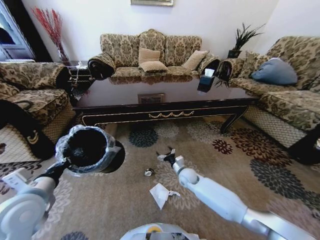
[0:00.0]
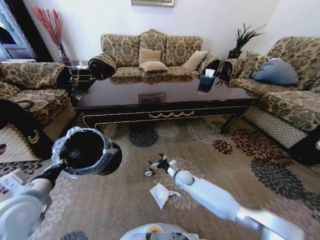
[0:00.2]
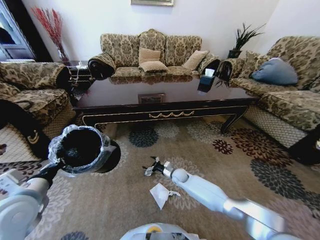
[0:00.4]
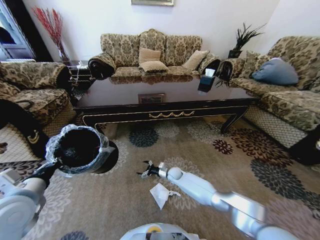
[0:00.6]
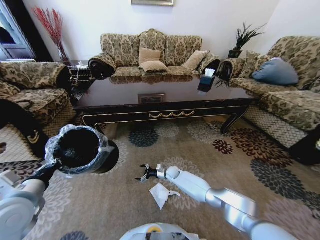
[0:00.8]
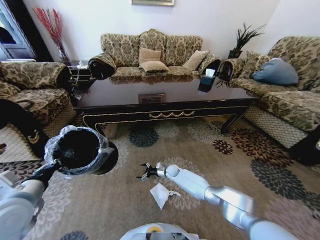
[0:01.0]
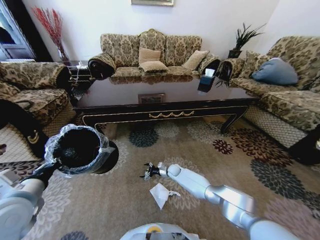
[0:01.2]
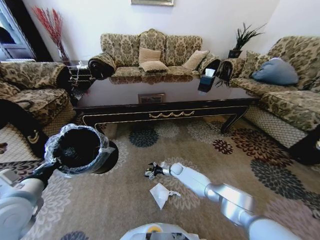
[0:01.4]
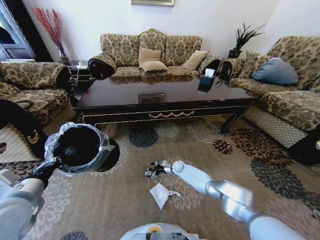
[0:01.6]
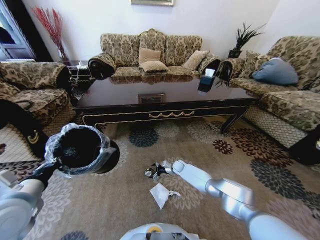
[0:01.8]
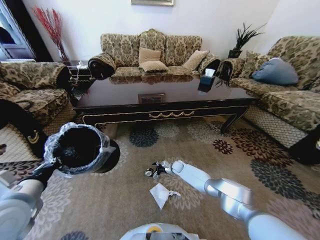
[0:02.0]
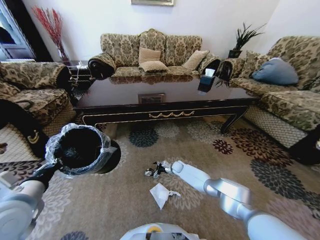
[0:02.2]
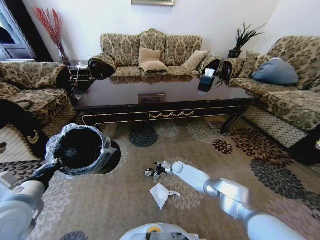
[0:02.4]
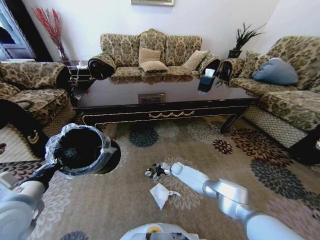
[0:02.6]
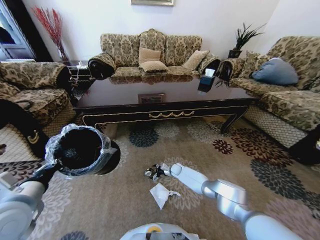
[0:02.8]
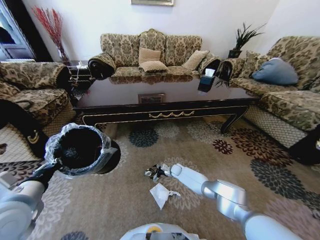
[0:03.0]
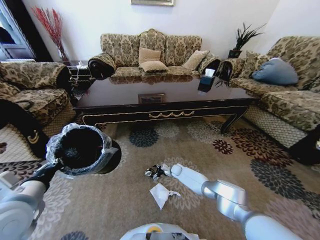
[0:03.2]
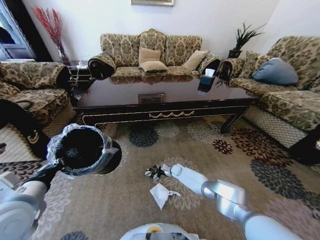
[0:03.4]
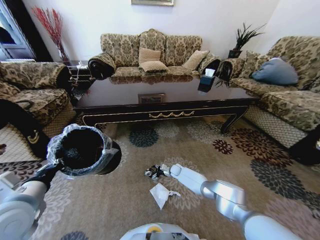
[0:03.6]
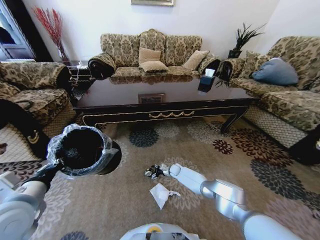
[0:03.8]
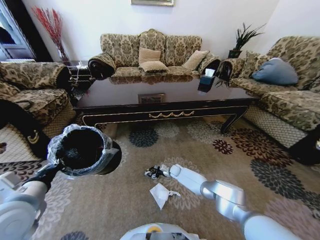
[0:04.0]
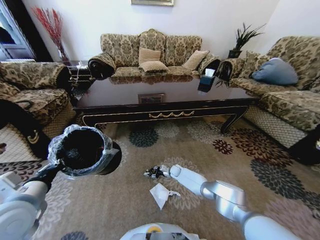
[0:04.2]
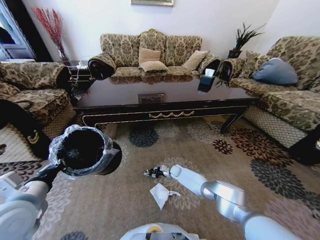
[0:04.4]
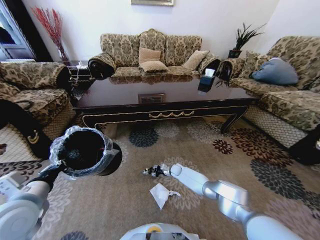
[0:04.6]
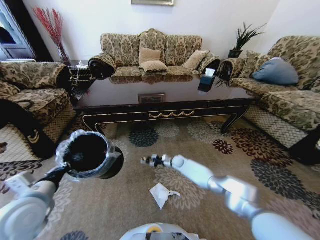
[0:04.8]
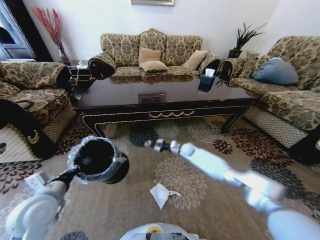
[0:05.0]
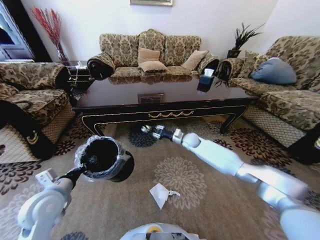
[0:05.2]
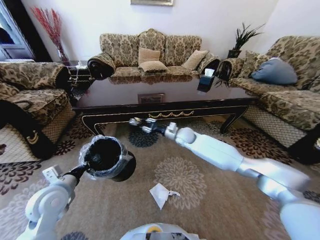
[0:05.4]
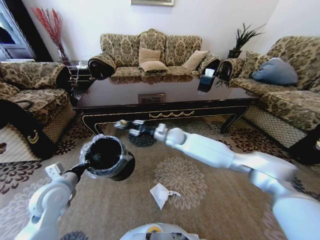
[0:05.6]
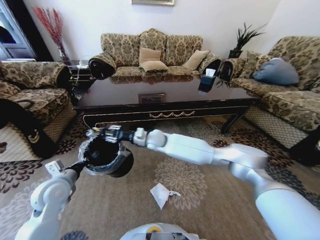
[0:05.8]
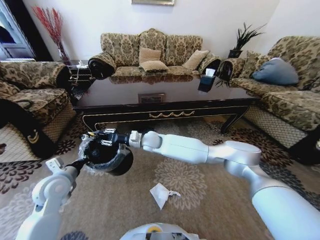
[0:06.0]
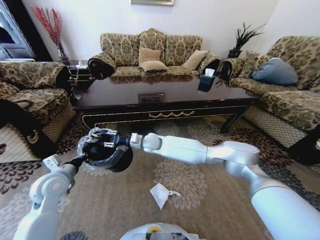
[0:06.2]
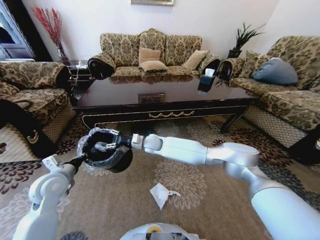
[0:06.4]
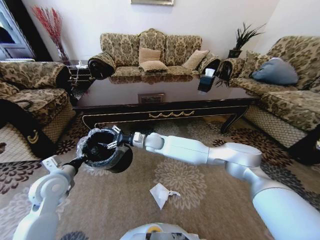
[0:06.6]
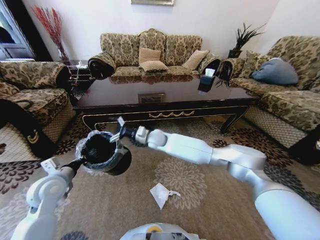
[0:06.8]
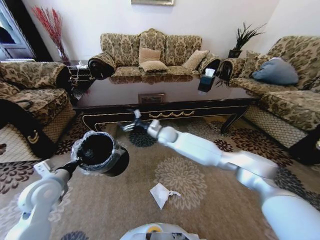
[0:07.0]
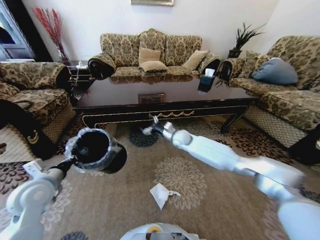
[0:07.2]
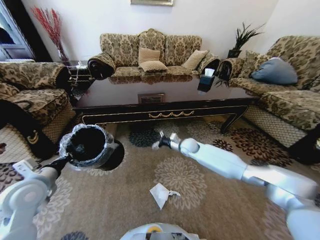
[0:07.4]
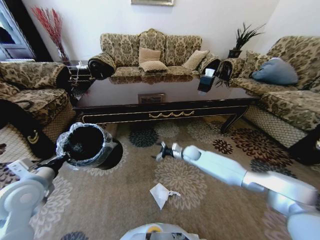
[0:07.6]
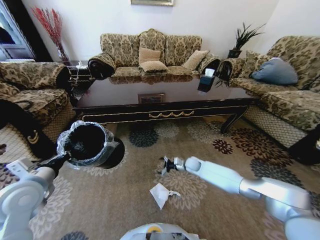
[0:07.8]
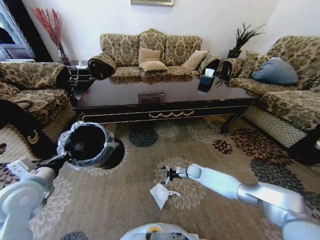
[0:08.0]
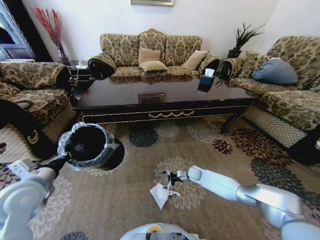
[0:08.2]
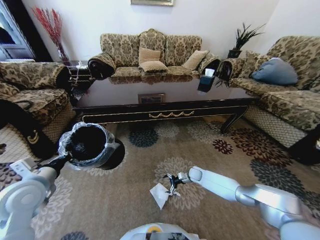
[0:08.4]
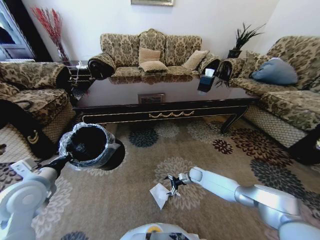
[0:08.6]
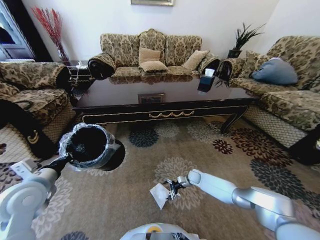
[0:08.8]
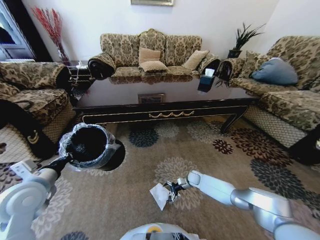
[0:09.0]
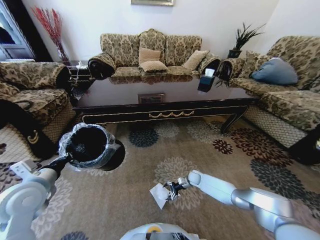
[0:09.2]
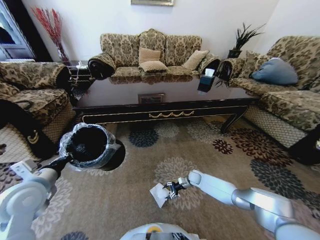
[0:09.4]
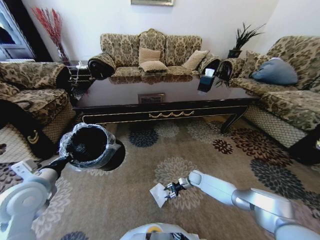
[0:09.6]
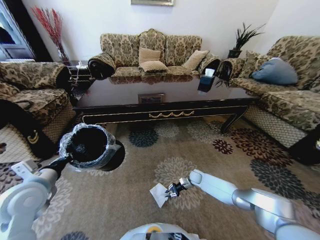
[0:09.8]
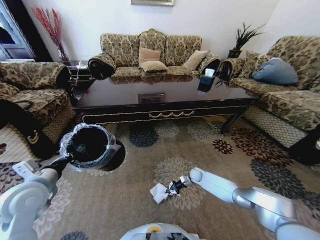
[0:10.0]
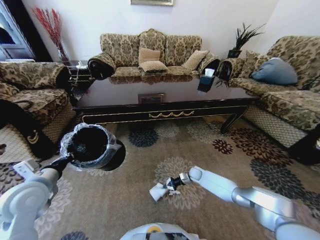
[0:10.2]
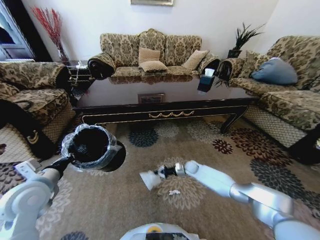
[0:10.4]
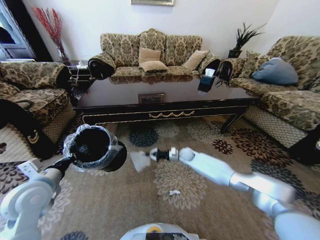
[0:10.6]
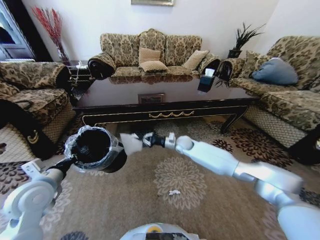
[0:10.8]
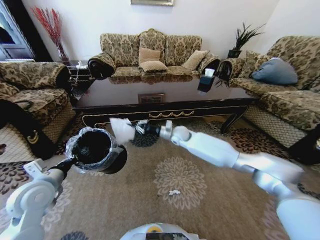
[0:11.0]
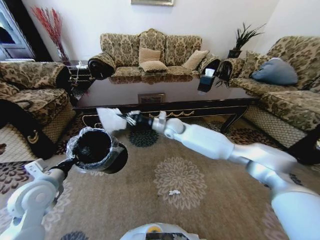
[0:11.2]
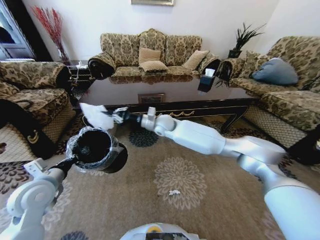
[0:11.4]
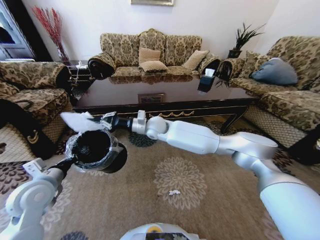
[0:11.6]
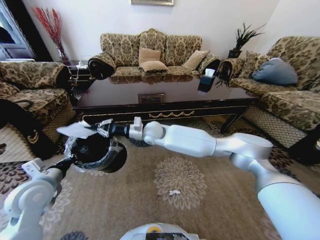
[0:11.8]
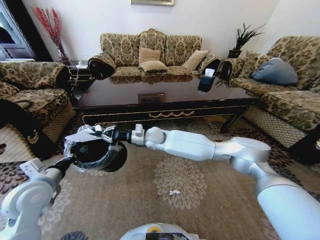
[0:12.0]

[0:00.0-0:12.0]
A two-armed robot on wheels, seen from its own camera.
Task of the whole recording: Move to the front of the table and pick up the trash from the floor, then place it into the trash bin.
0:00.0 to 0:01.6: The right gripper heads forward and downward, covering some 15 cm.
0:01.6 to 0:03.0: The grippers make only small movements.
0:03.0 to 0:04.4: The right gripper closes up.
0:04.4 to 0:06.0: The right gripper goes some 40 cm upward and to the left, while the left gripper heads forward and downward, covering roughly 10 cm.
0:06.0 to 0:07.6: The left gripper travels upward by roughly 5 cm; the right gripper heads to the right and downward, covering some 25 cm, and opens up.
0:07.6 to 0:09.0: The right gripper moves downward, some 20 cm.
0:09.0 to 0:10.4: The right gripper moves upward, approximately 5 cm, and closes.
0:10.4 to 0:12.0: The right gripper goes about 40 cm upward and to the left.

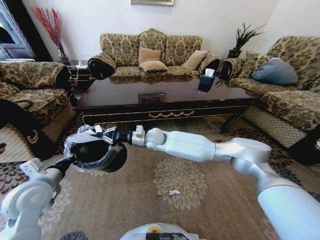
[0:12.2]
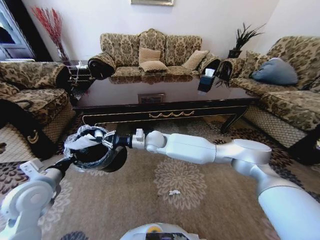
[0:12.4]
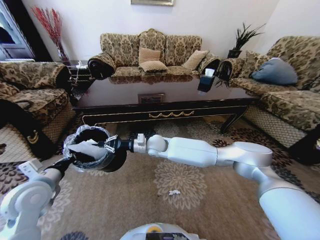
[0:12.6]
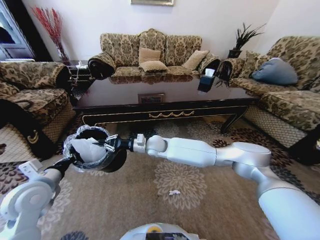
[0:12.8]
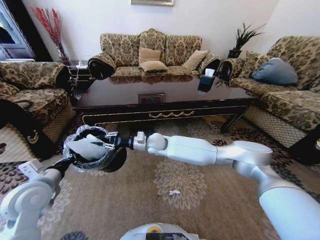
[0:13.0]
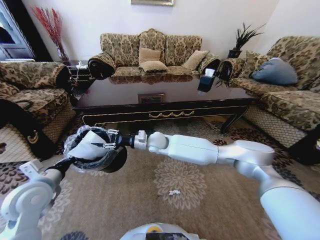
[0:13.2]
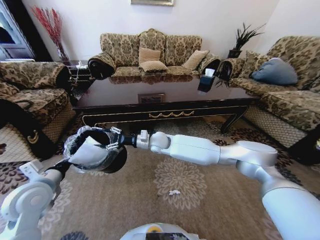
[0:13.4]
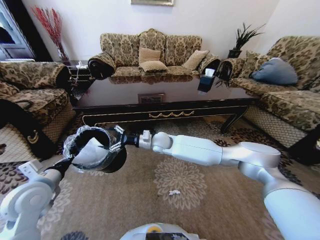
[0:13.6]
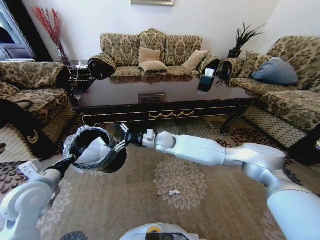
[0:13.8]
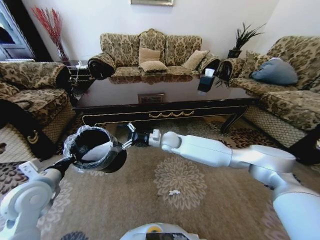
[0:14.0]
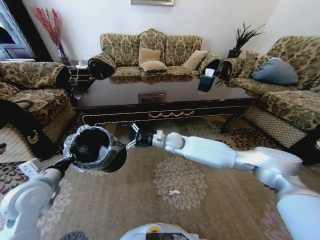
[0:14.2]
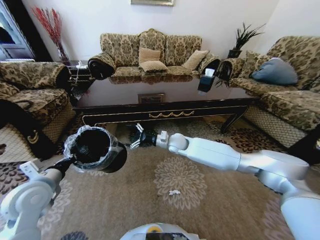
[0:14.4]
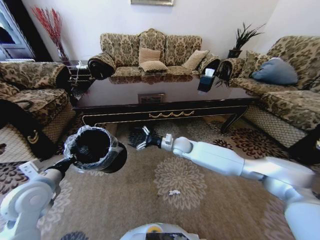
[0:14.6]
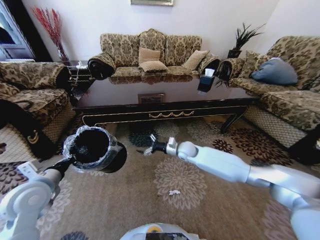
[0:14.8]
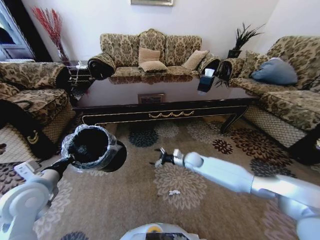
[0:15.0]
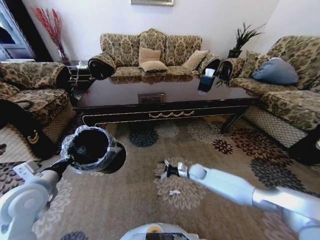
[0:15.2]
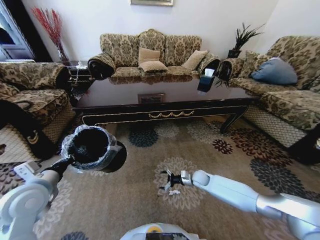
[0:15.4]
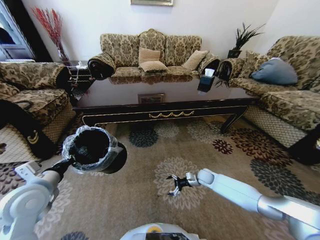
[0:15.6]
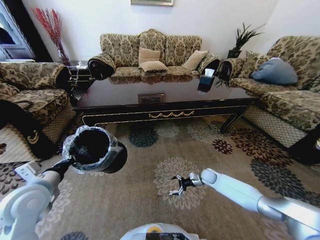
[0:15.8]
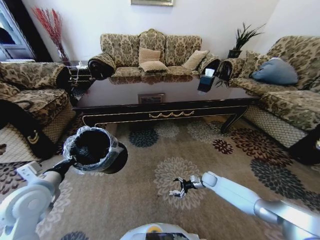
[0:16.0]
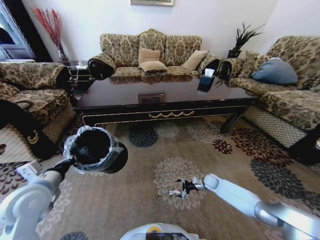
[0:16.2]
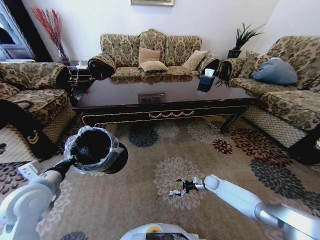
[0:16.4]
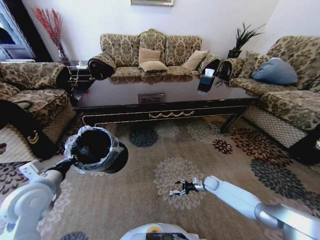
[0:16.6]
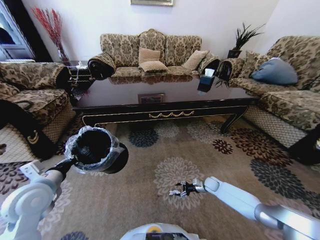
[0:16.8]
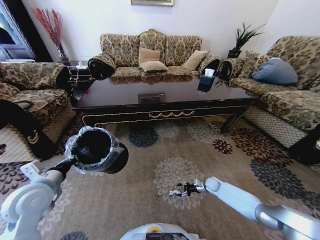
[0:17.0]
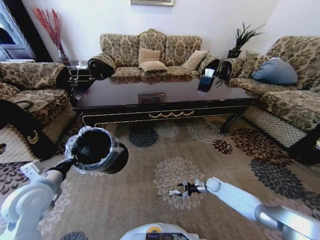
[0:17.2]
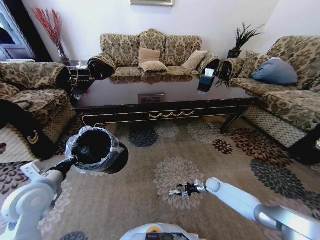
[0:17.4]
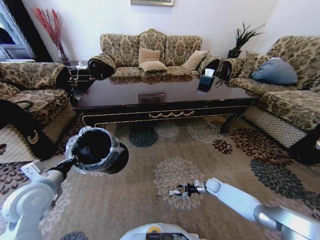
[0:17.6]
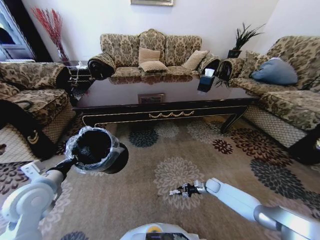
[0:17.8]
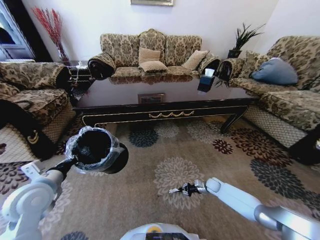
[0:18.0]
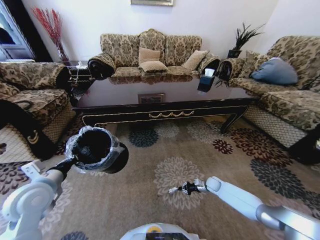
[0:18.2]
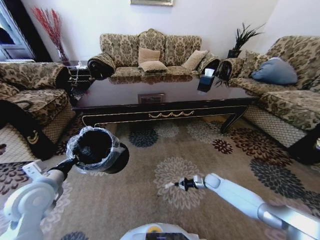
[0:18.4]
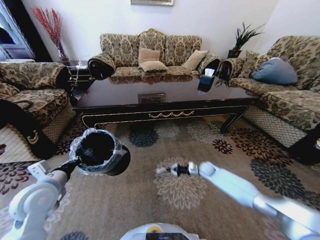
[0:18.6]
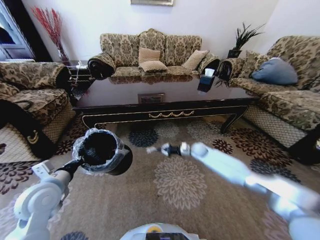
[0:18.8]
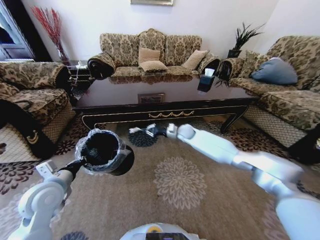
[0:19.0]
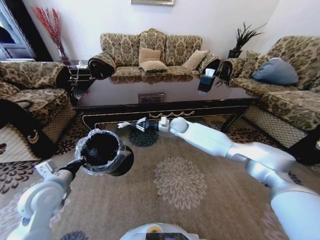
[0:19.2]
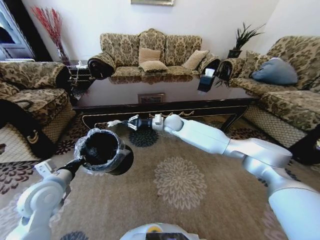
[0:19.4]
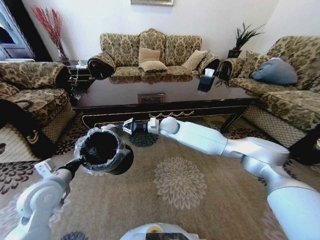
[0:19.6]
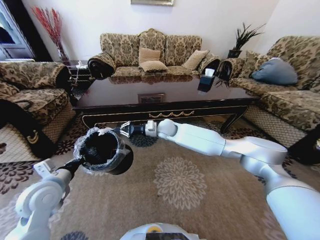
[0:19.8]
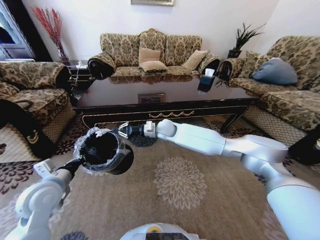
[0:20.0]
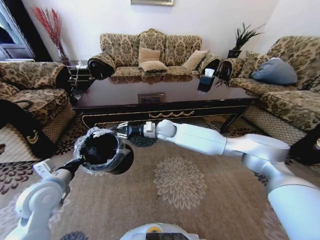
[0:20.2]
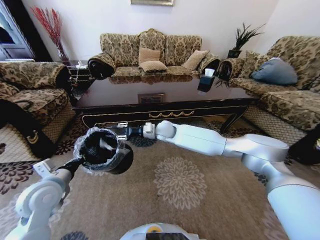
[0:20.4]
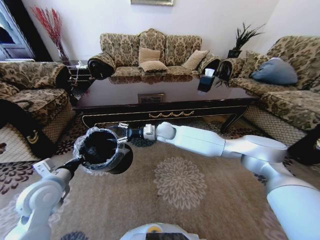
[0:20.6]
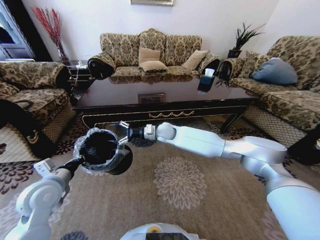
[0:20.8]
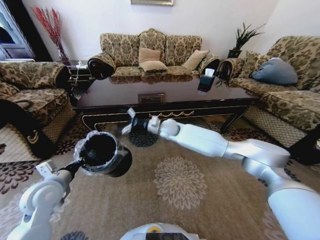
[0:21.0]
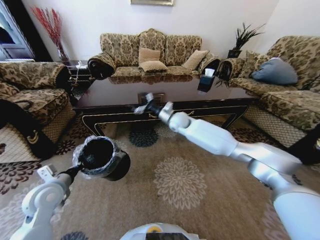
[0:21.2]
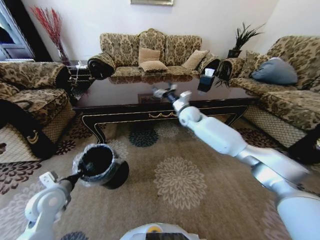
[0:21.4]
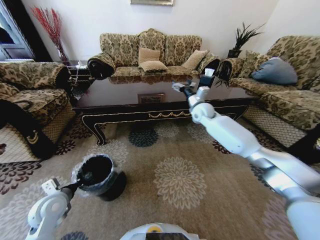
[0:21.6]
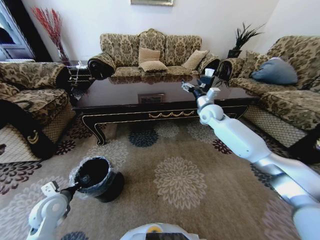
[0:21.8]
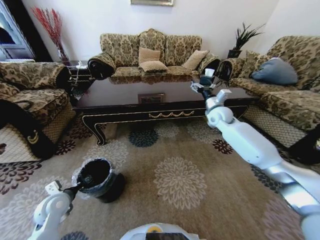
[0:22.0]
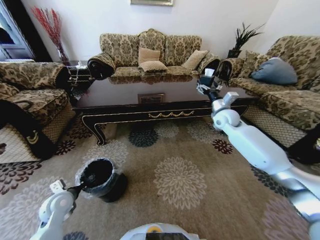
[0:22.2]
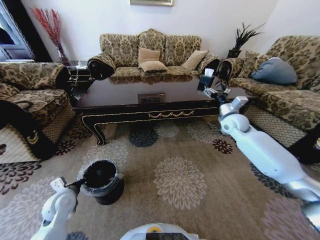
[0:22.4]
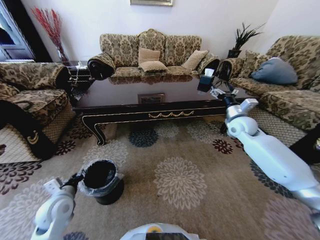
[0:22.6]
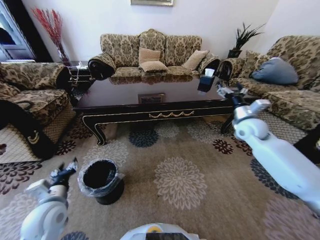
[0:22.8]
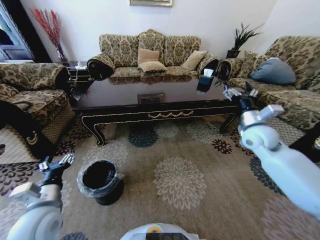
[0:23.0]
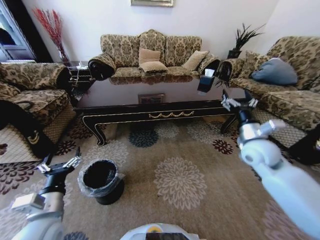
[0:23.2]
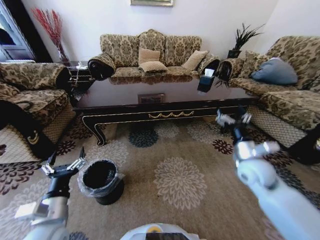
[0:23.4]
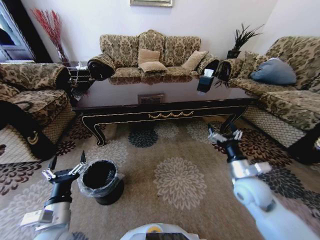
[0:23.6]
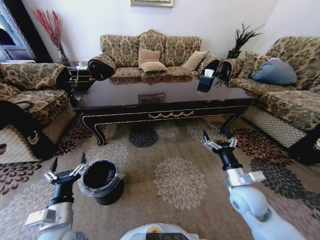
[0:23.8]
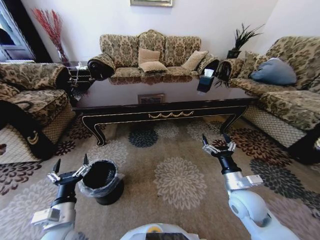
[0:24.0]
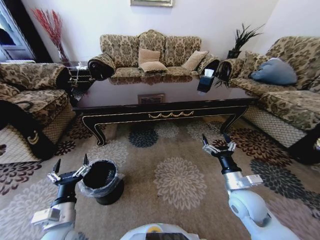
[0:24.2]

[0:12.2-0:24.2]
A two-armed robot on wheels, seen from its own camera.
Task of the whole recording: Move to the front of the table and pick up the trash from the floor, then place it into the trash bin.
0:12.2 to 0:13.8: The right gripper shifts approximately 5 cm to the right, and opens.
0:13.8 to 0:15.2: The right gripper moves downward and to the right, roughly 30 cm.
0:15.2 to 0:16.6: The right gripper is displaced to the right and downward by approximately 15 cm.
0:16.6 to 0:18.2: The right gripper closes its fingers.
0:18.2 to 0:19.8: The right gripper goes approximately 50 cm upward and to the left.
0:19.8 to 0:21.2: The right gripper moves to the right, some 5 cm, and opens its fingers.
0:21.2 to 0:22.6: The left gripper goes roughly 5 cm downward, and opens up, while the right gripper goes roughly 25 cm to the right.
0:22.6 to 0:24.2: The left gripper is displaced backward and to the right by some 10 cm, and opens; the right gripper travels backward and downward by about 30 cm.
